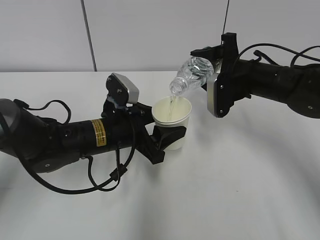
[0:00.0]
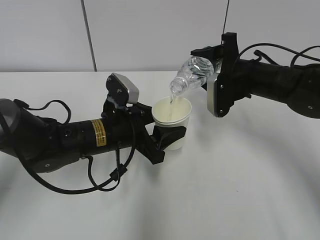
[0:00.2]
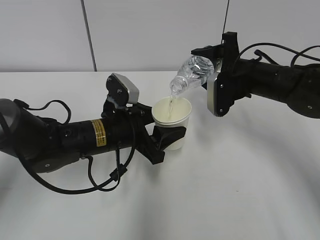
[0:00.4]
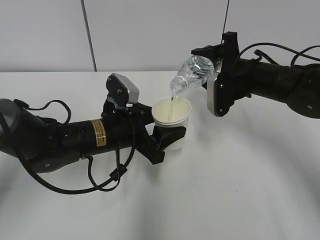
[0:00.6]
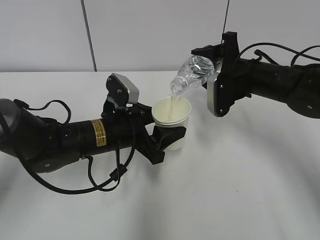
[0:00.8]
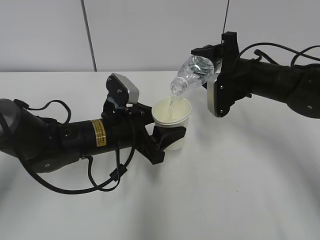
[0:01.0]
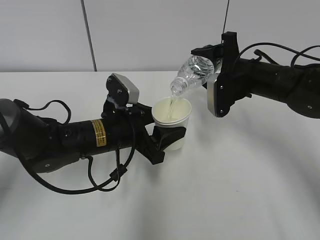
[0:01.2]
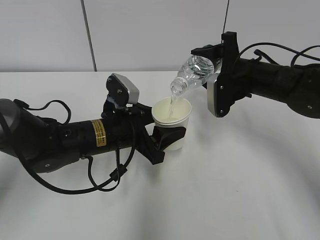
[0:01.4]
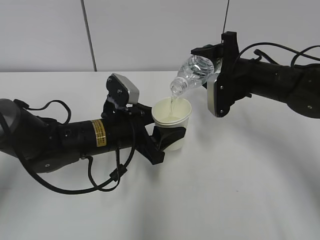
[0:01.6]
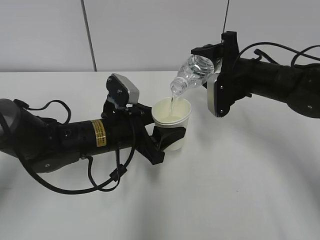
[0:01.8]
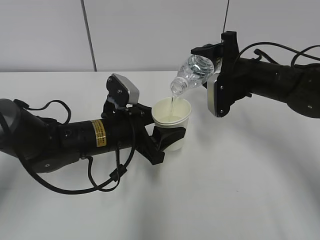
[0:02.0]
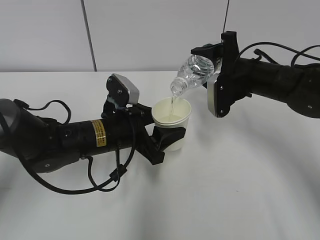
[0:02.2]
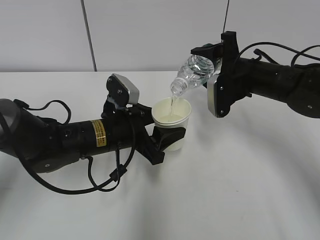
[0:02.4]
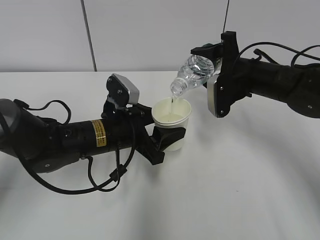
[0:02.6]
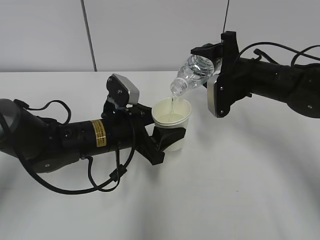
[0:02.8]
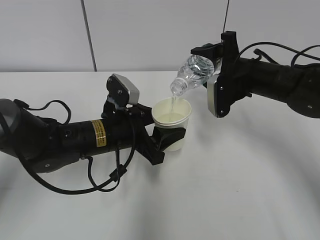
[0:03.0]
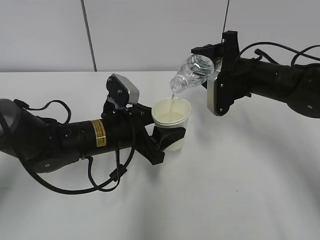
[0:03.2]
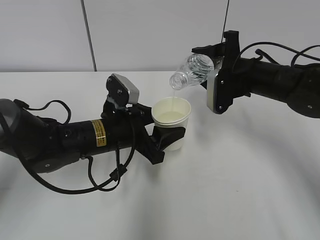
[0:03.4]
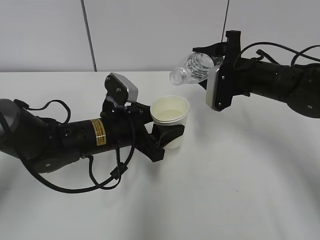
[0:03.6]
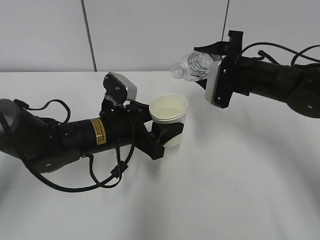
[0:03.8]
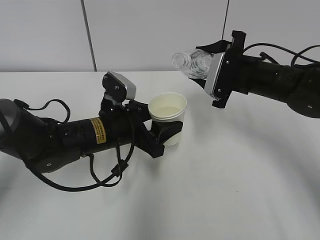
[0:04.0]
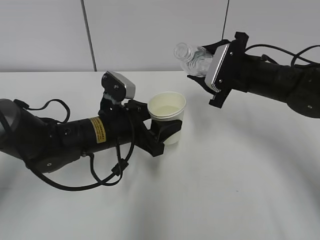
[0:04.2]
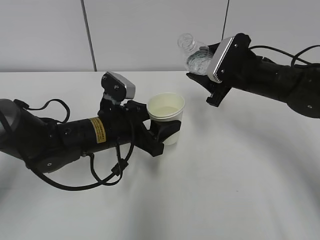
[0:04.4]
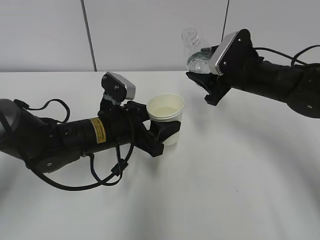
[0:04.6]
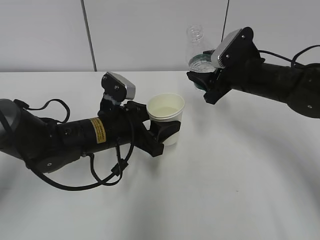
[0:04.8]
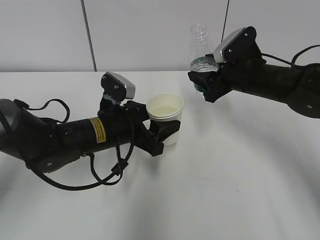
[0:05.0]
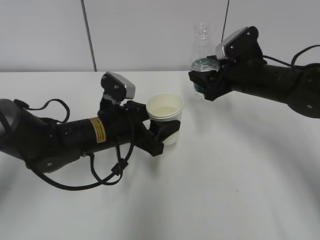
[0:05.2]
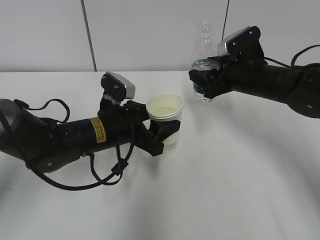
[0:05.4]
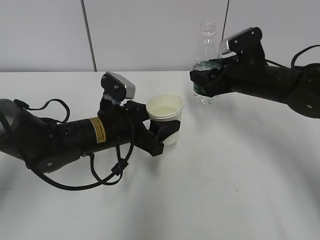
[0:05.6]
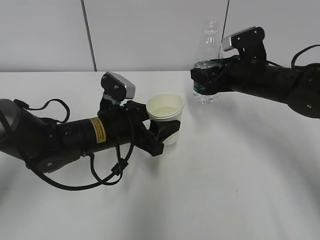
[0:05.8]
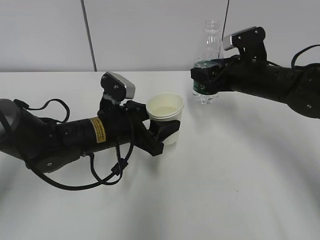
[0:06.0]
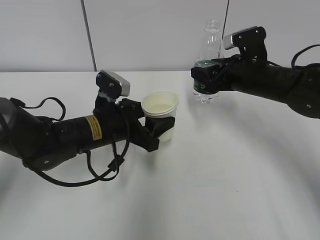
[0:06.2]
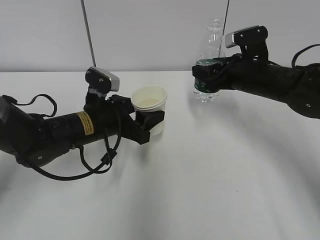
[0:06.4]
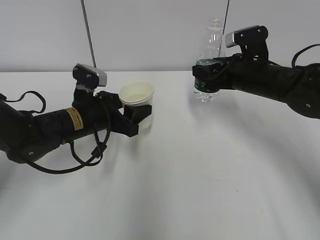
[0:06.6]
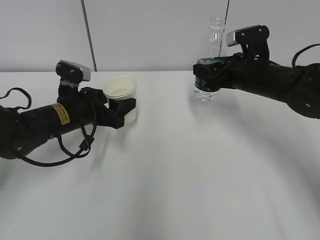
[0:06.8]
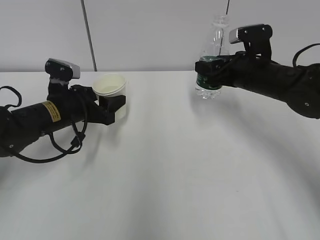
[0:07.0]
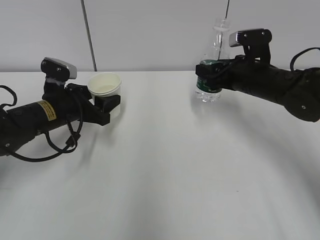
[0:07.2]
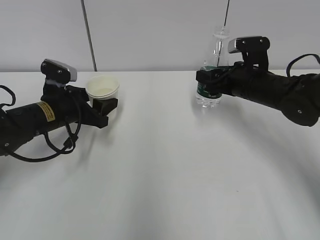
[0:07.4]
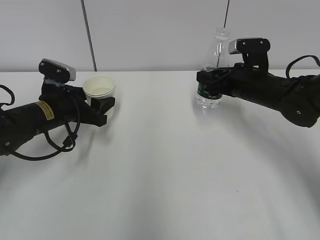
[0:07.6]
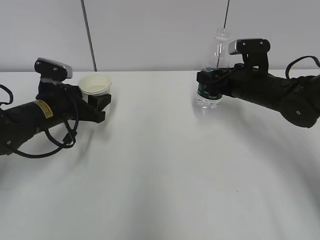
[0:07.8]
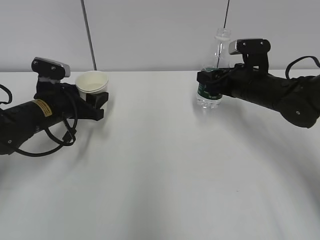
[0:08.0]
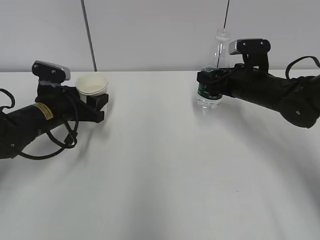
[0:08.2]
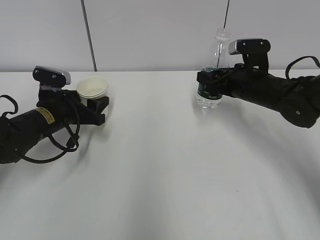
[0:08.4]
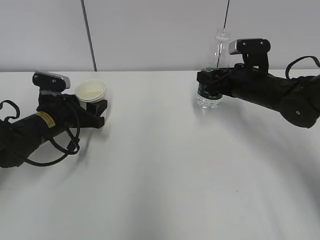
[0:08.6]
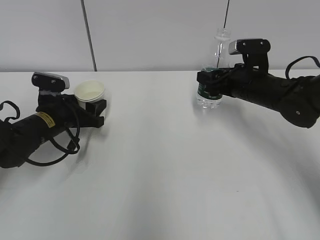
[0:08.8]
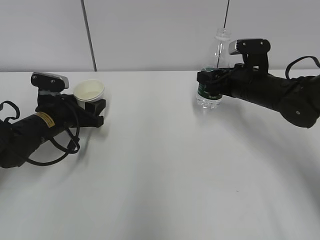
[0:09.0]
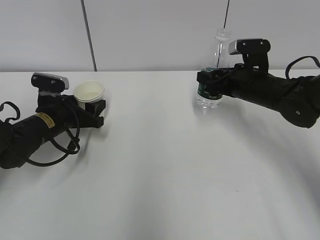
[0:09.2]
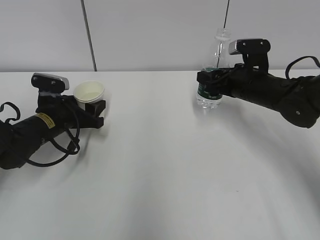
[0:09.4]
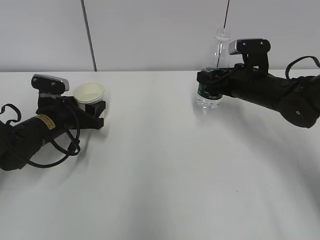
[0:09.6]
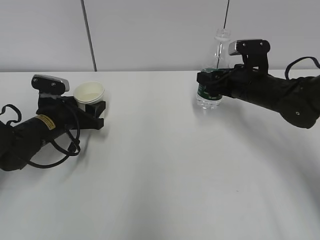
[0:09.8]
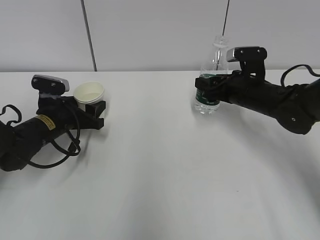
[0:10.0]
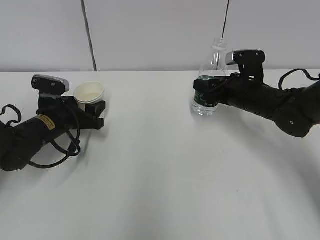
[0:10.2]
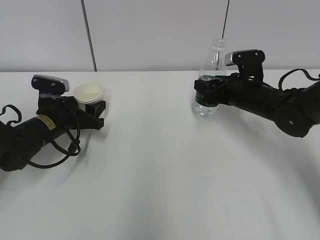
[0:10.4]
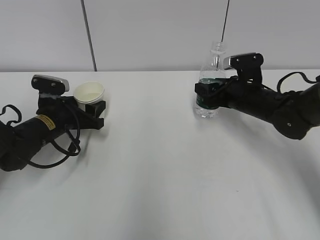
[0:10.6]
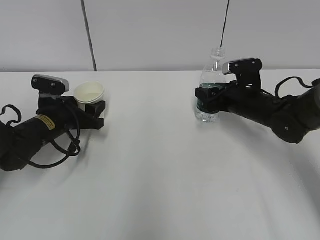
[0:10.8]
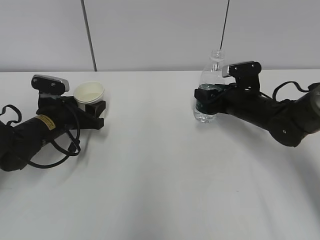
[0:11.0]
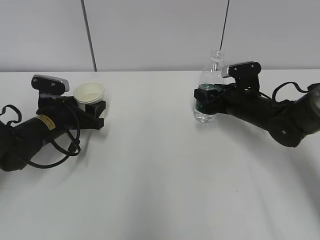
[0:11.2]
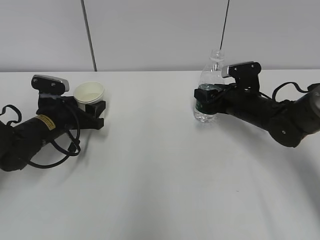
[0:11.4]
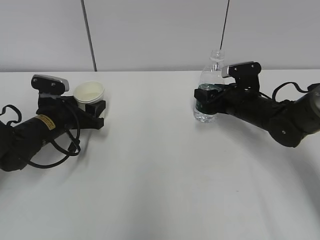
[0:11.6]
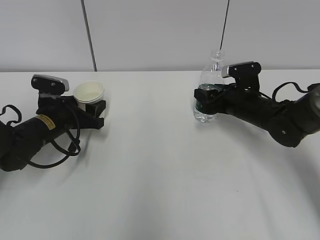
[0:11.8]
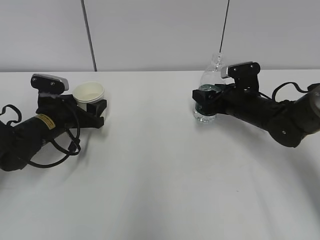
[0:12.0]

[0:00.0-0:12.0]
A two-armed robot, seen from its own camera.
Step, 0:01.0 to 0:06.2: Place the paper cup with the left hand.
0:00.0 to 0:03.0: Neither gripper changes place.
0:06.0 to 0:07.6: The left gripper shifts approximately 15 cm to the left and forward.
0:07.6 to 0:10.4: There are only small adjustments of the grippers.
0:10.4 to 0:12.0: The right gripper opens its fingers.

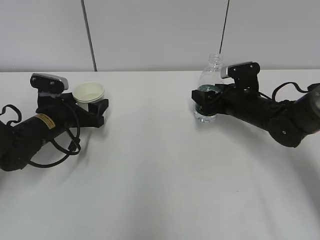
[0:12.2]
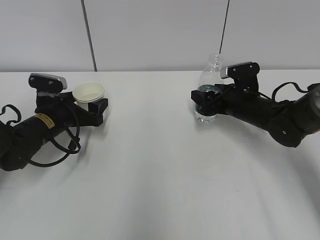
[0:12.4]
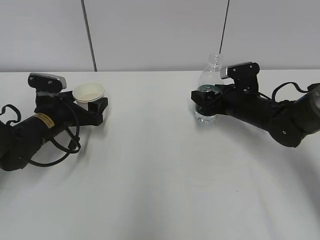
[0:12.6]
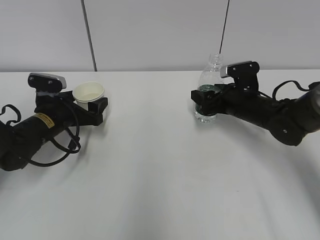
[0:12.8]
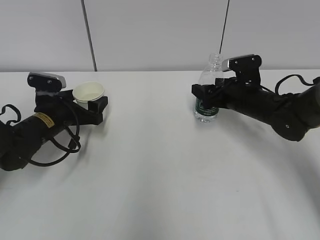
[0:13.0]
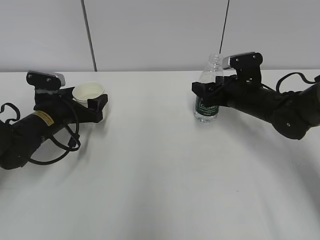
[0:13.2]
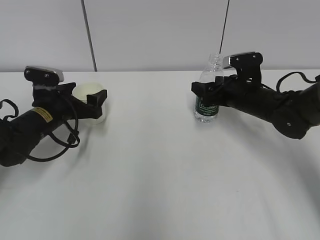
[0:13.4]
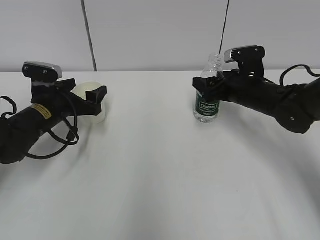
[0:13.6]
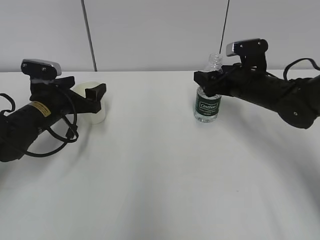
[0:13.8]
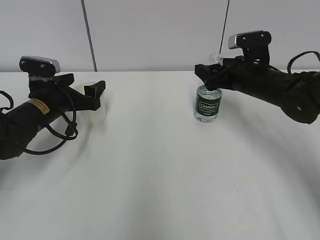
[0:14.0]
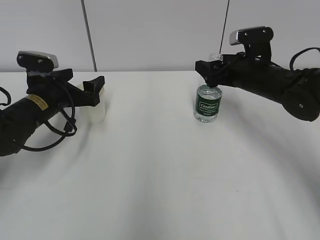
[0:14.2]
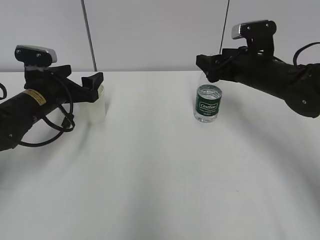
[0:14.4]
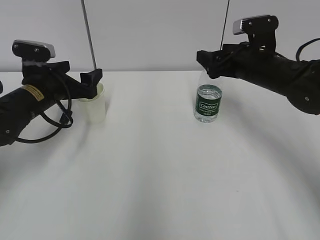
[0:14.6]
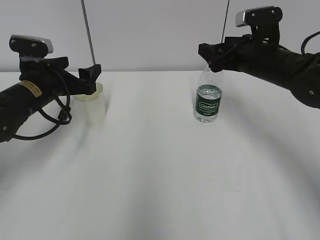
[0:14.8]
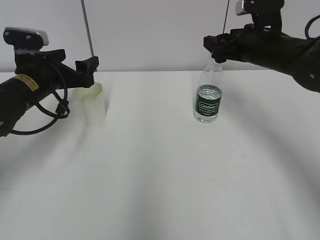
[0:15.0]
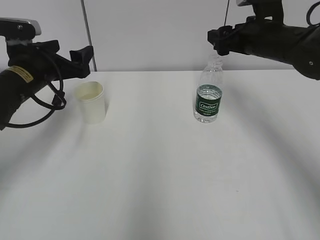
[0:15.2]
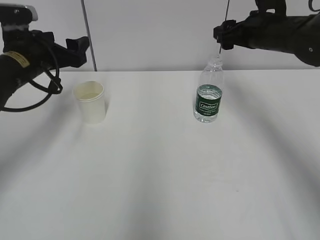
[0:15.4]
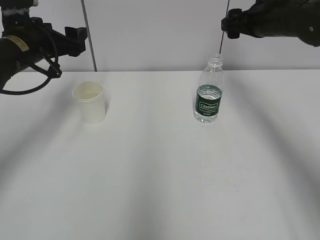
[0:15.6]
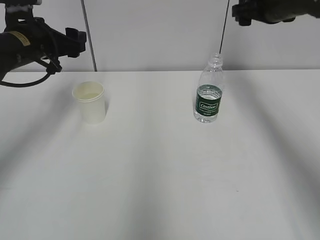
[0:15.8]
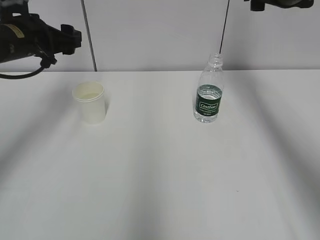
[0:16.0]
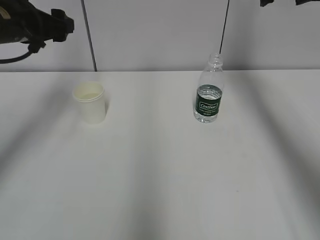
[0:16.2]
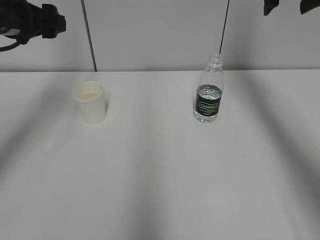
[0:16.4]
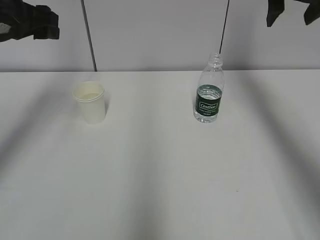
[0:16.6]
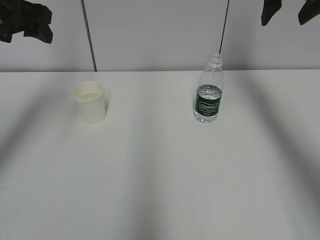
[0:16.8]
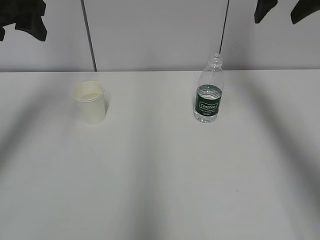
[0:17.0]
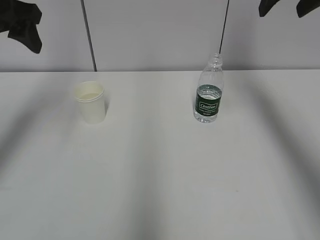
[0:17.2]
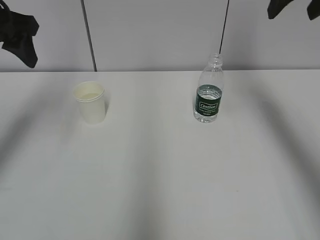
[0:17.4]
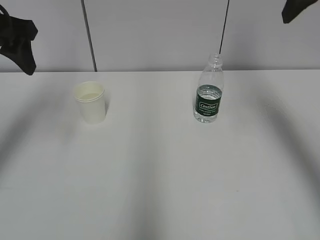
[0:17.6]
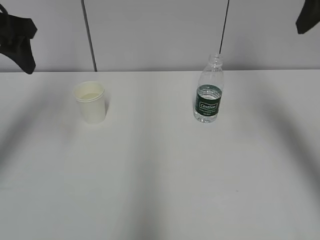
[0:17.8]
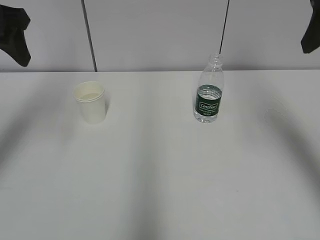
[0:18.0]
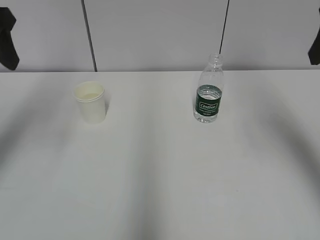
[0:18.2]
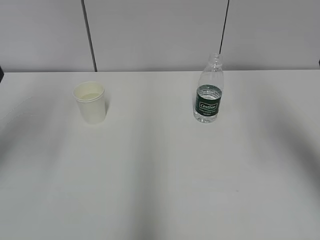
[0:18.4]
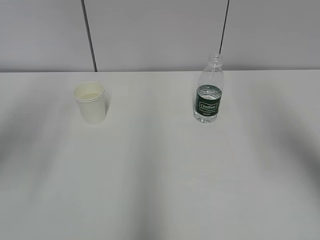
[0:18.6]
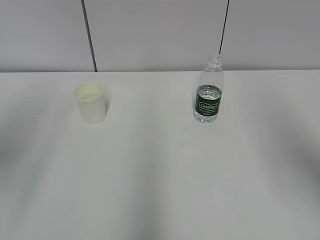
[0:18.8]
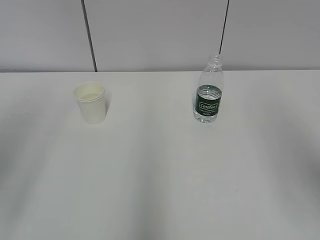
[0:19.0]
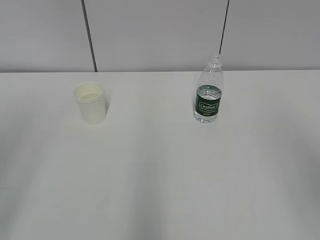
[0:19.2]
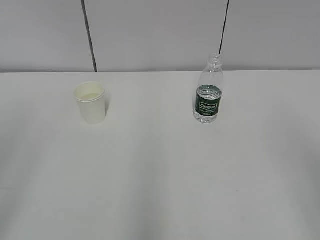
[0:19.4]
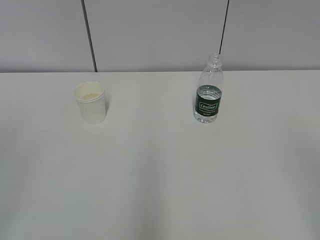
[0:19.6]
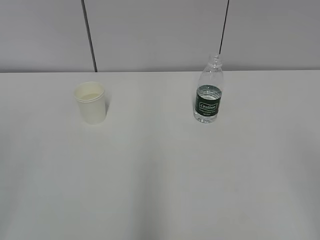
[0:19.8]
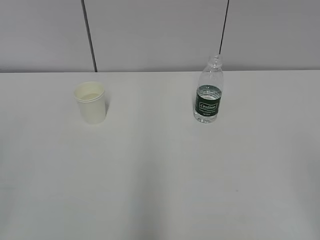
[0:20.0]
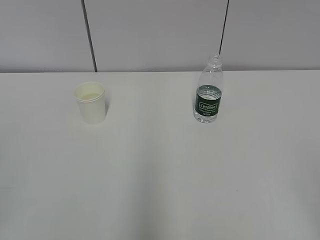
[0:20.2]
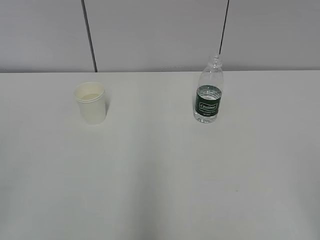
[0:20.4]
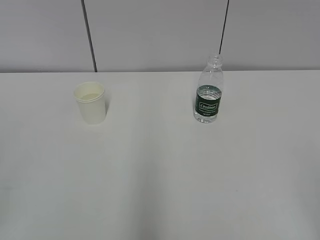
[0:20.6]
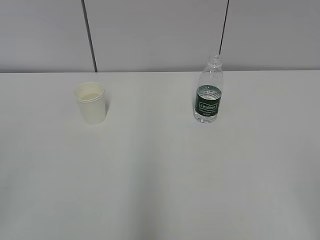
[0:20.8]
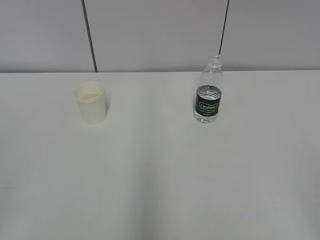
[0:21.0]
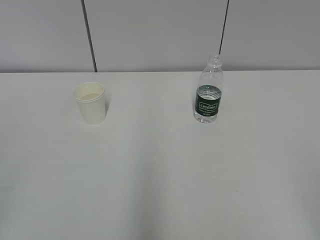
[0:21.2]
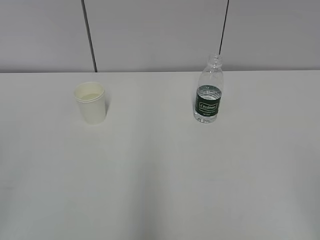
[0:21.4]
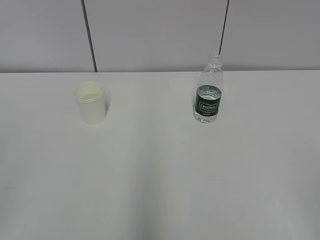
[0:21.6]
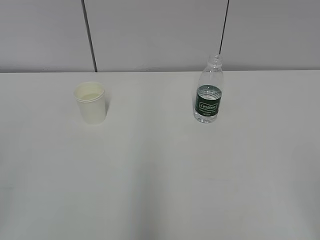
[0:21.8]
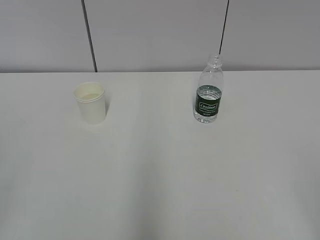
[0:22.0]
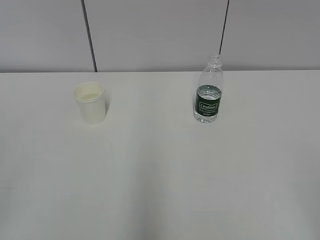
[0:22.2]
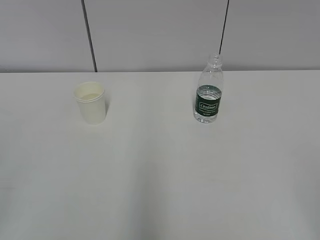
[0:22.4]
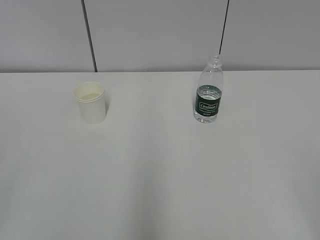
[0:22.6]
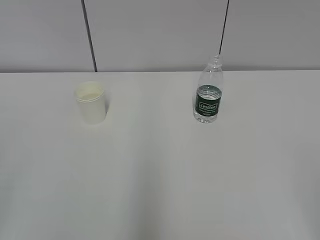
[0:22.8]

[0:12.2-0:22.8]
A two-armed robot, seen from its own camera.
0:12.2 to 0:13.8: There are only small adjustments of the grippers.
0:13.8 to 0:15.2: The grippers both shift upward by roughly 10 cm.
0:15.2 to 0:16.8: Both grippers move upward, roughly 15 cm.
0:16.8 to 0:18.2: The left gripper goes roughly 5 cm backward. Meanwhile the right gripper moves backward, roughly 15 cm.
0:18.2 to 0:19.8: Both grippers move backward, about 25 cm.
0:21.2 to 0:22.8: Both grippers stay about where they are.
